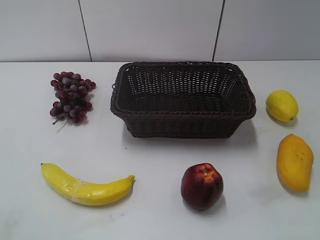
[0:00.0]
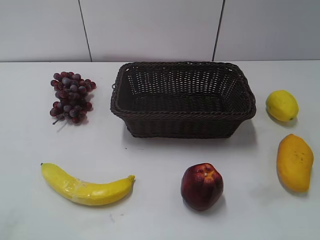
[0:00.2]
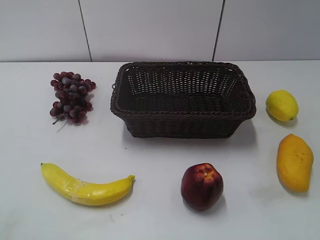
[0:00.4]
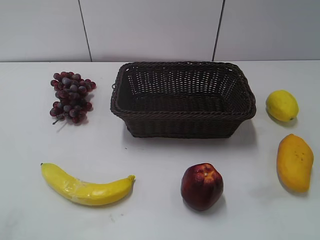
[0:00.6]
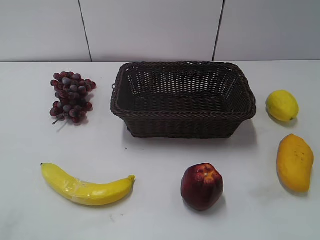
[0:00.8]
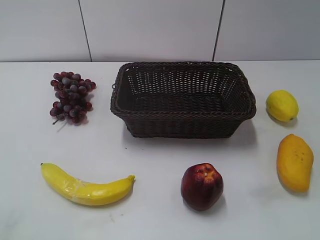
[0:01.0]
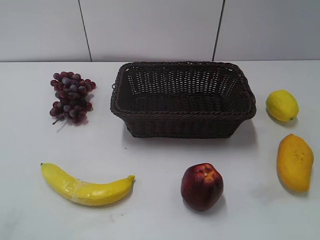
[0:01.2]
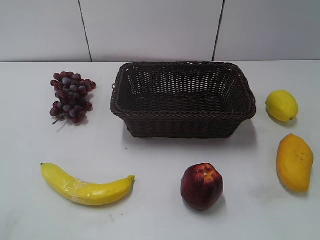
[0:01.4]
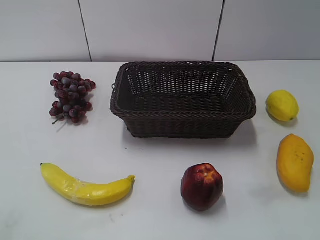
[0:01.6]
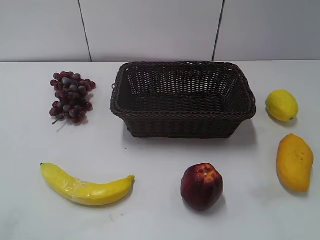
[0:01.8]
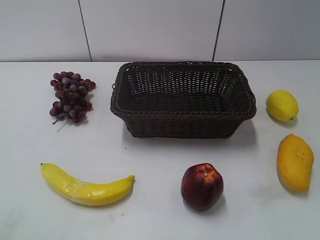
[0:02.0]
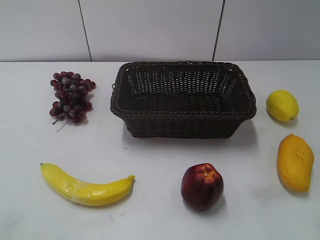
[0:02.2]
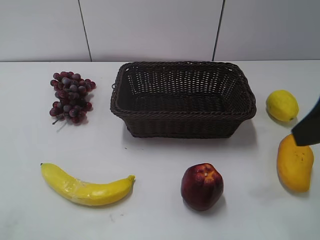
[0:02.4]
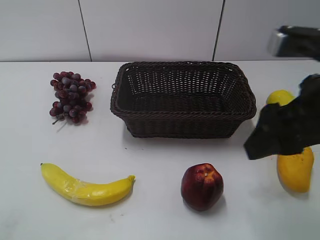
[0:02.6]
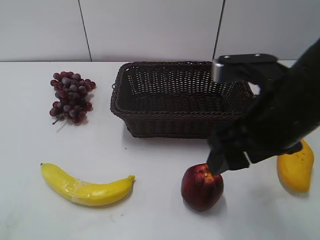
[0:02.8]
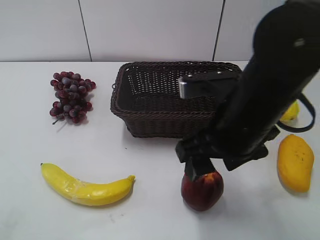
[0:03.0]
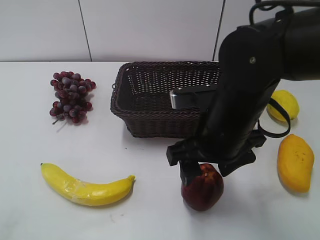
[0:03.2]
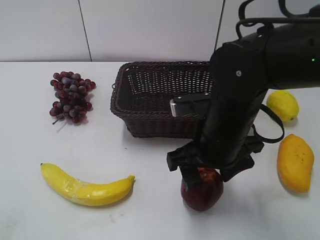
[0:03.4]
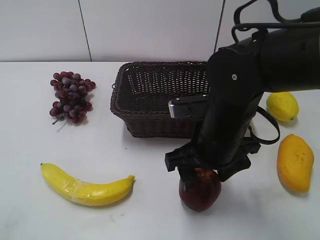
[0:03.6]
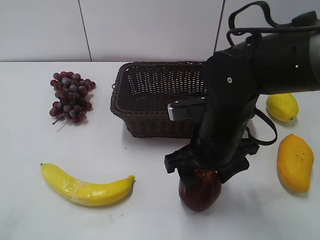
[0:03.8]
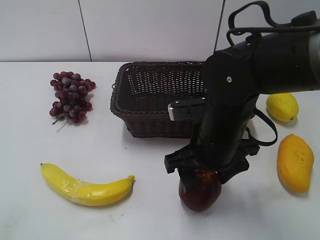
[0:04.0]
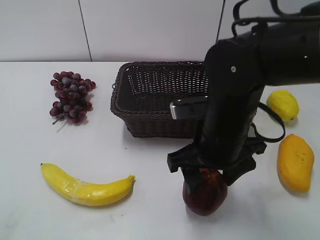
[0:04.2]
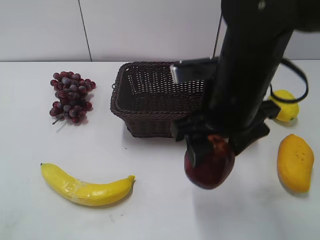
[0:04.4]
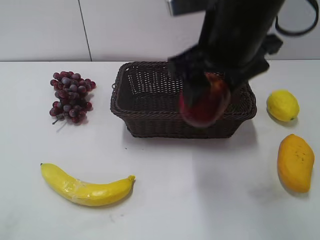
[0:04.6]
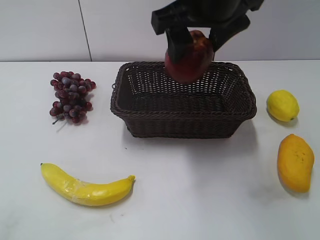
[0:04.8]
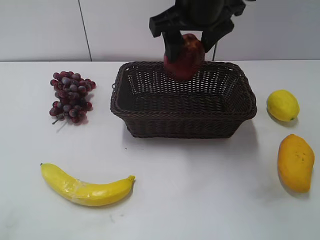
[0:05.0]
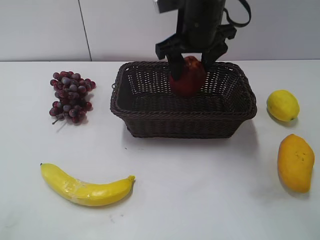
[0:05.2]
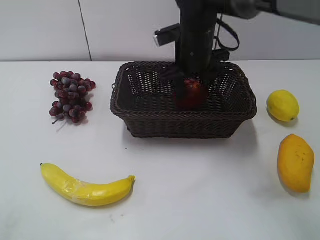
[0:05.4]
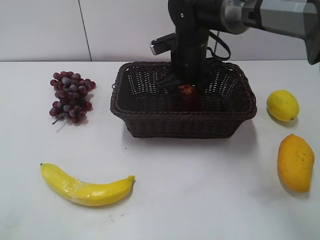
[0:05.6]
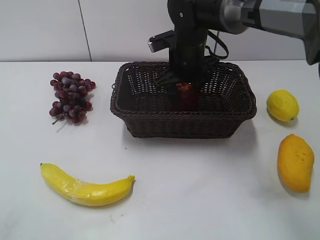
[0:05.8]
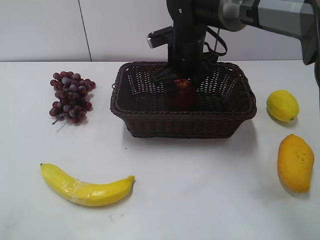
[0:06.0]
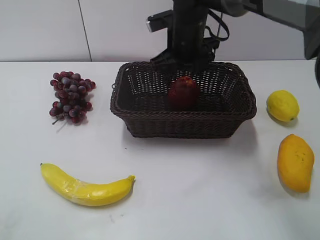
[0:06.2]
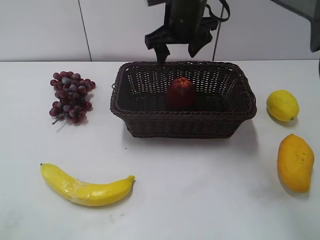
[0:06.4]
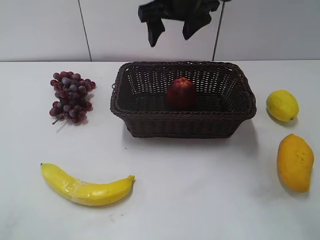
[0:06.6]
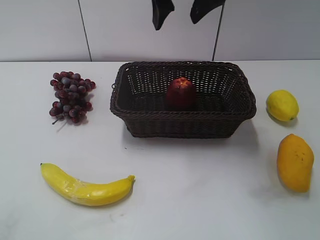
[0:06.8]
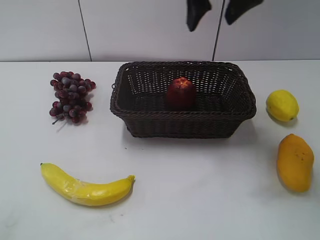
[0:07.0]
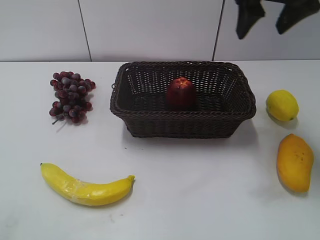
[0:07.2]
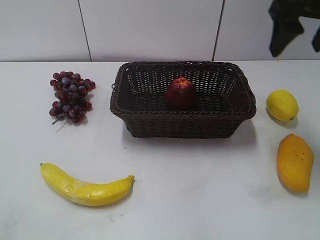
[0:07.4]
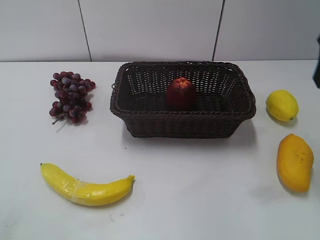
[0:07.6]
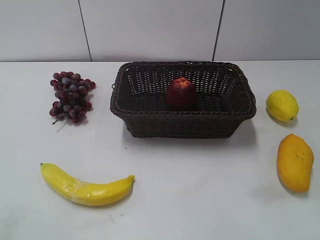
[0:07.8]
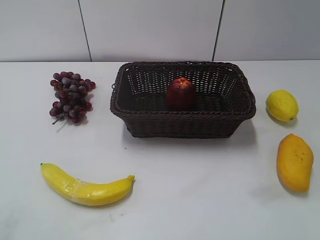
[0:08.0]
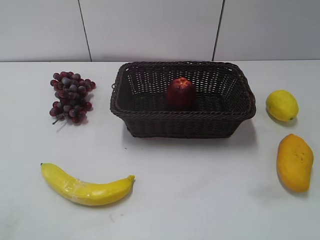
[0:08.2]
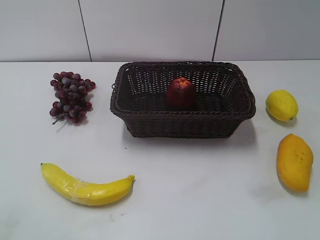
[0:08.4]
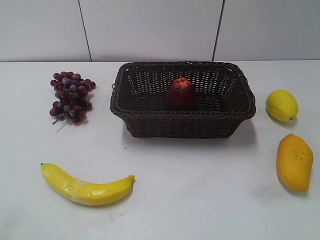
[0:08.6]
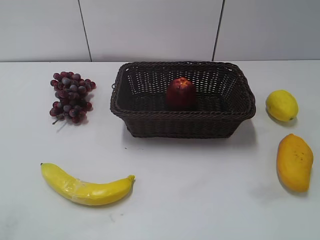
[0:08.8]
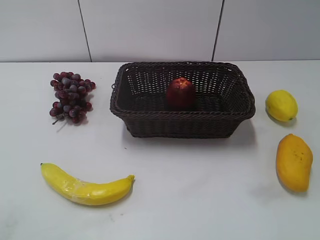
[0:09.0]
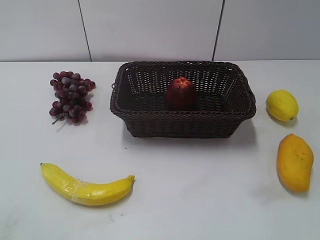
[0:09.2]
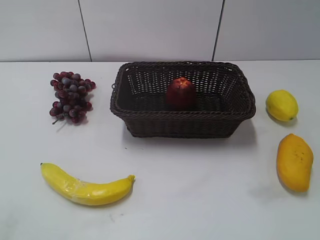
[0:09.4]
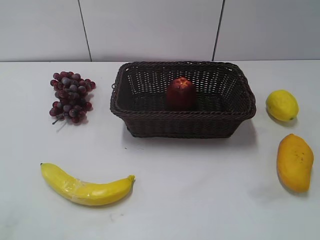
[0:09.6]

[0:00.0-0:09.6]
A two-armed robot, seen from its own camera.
Step, 0:02.4 to 0:03.6: Grasp the apple with right gripper.
Step, 0:04.0 to 0:05.8: Place the apple in the basket with right gripper.
0:01.6 to 0:03.2: The left gripper opens. Meanwhile the right gripper travels to the left, forward and downward by roughly 30 cm.
0:03.2 to 0:04.8: The right gripper travels upward and forward by some 15 cm.
0:04.8 to 0:06.4: The right gripper moves forward and downward, about 15 cm, and opens.
0:06.4 to 0:08.0: The right gripper heads backward and to the right, covering roughly 40 cm, and closes its fingers.

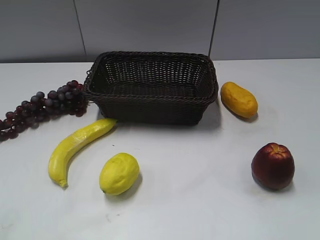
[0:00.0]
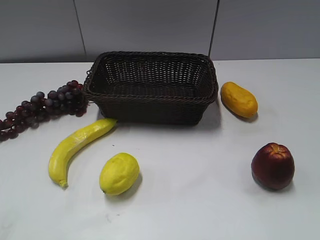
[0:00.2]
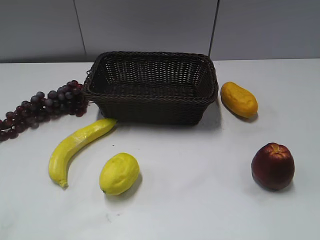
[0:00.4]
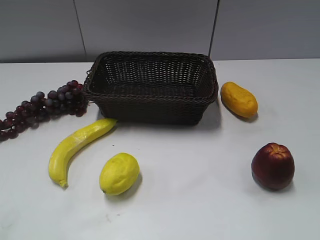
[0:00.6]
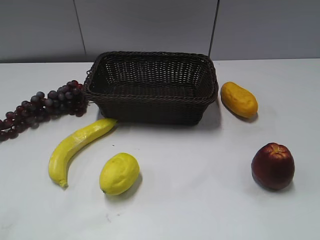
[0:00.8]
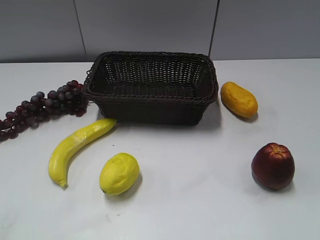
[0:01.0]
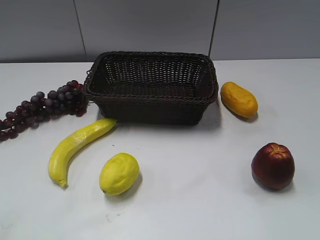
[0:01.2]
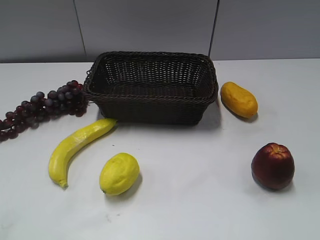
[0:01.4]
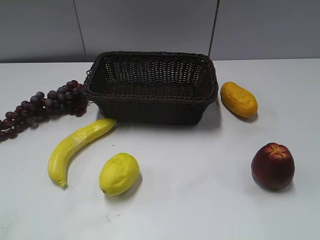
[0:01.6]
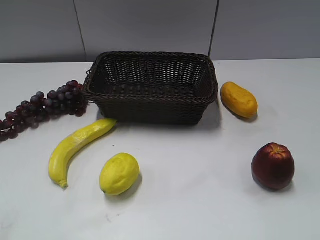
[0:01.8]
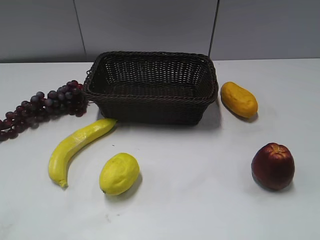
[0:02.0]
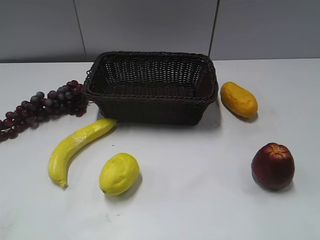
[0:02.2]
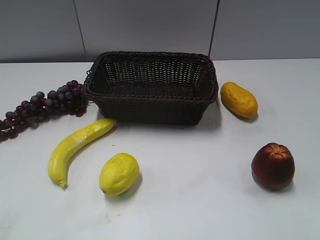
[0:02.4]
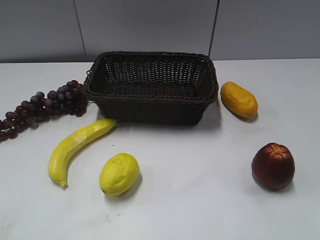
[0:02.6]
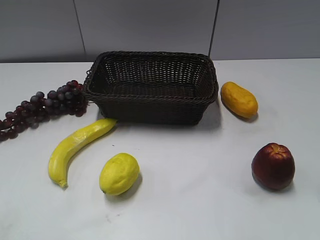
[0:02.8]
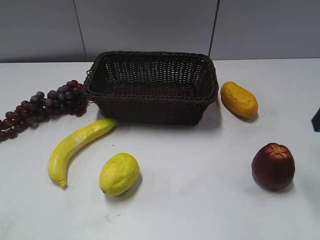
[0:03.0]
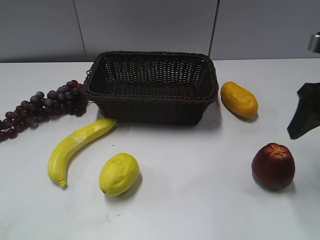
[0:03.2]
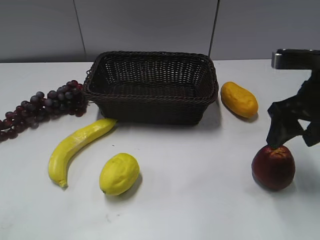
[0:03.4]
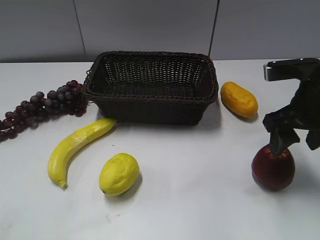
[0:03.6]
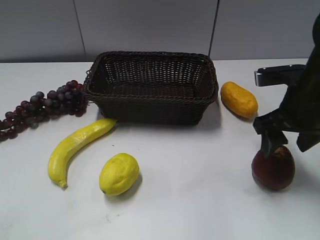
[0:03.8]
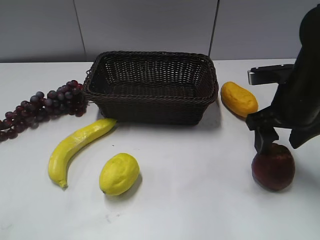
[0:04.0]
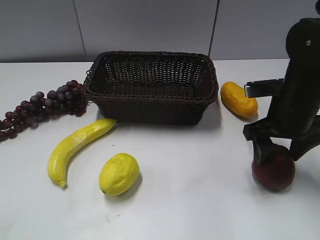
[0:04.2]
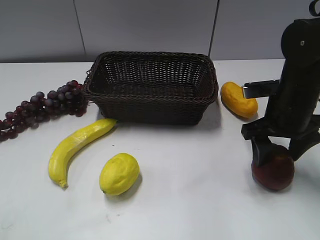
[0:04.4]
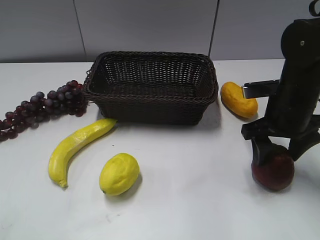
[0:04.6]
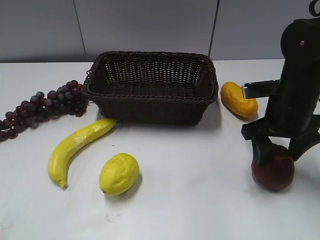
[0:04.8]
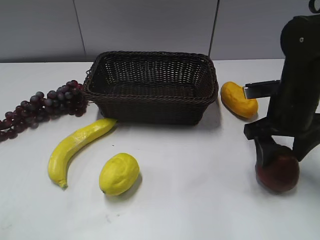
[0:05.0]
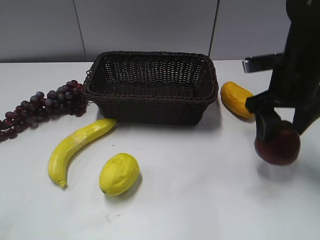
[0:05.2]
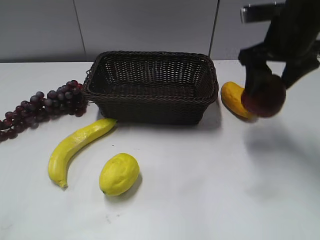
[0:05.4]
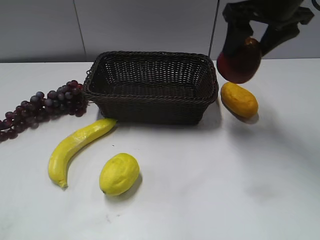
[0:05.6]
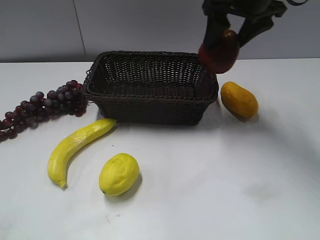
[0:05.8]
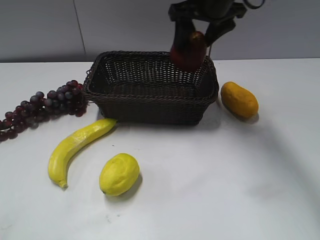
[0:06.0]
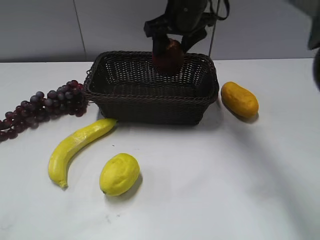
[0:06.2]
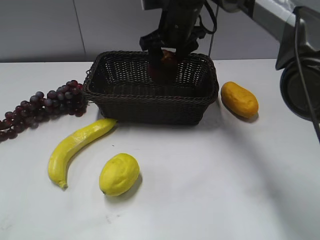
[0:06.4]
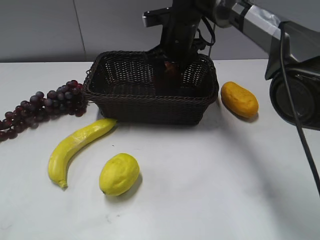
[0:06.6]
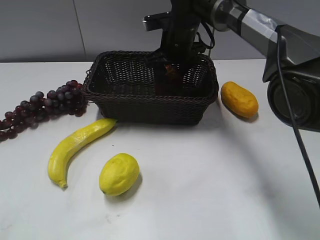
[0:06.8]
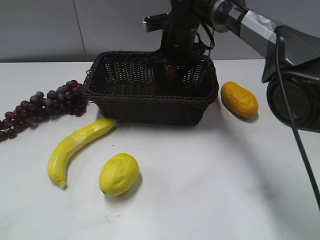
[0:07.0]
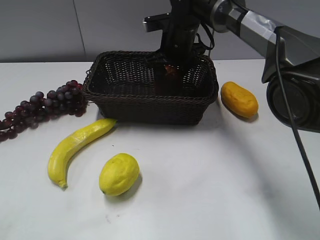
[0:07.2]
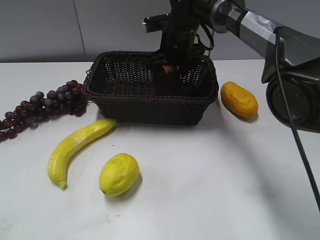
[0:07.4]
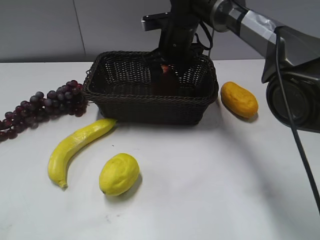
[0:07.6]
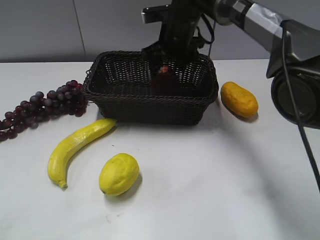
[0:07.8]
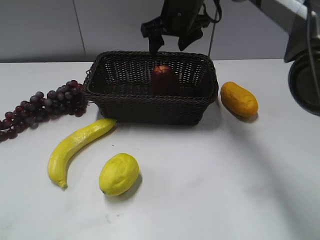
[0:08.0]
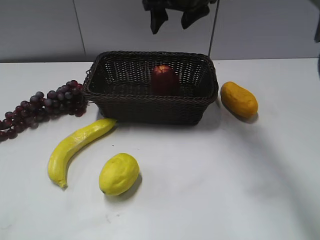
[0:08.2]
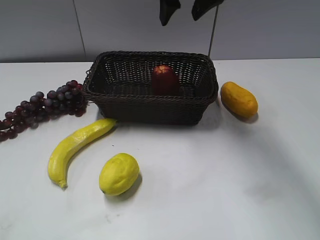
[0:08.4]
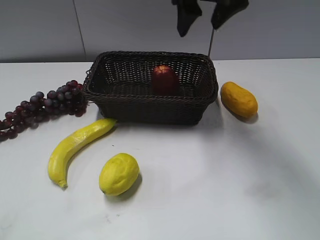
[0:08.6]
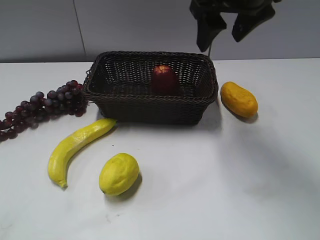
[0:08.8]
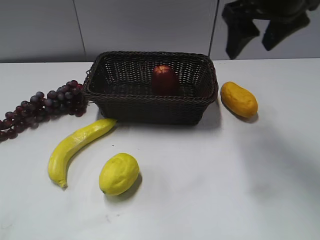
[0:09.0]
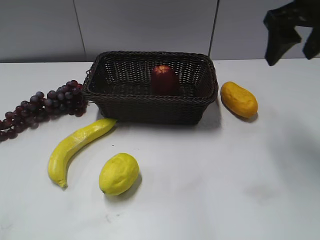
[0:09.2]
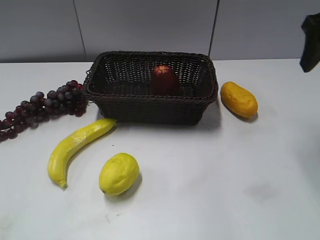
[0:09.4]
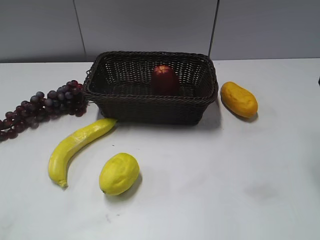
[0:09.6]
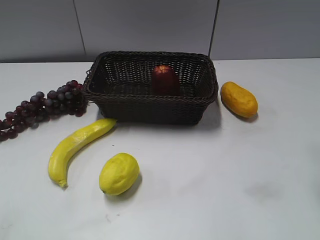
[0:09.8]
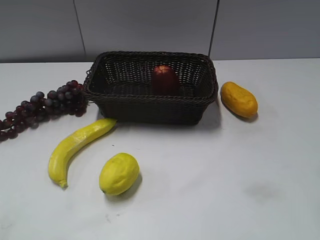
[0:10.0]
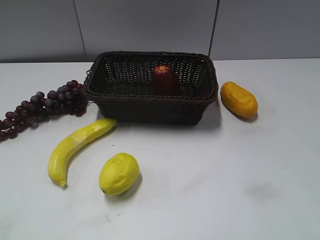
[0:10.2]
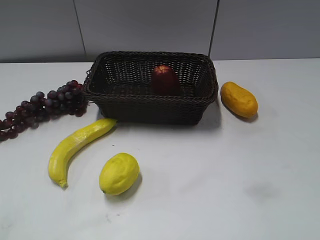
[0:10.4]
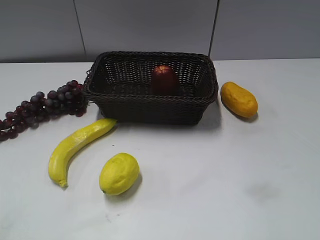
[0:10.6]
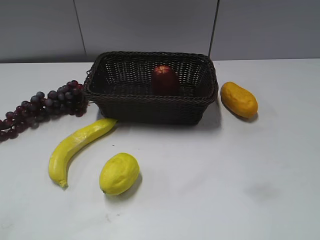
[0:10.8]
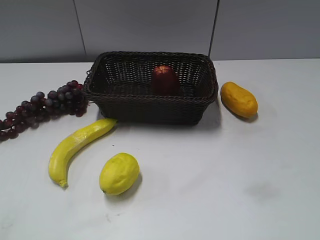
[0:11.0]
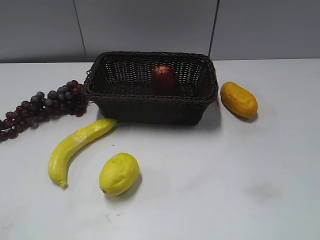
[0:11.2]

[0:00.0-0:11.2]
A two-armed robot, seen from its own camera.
Step, 0:03.0 to 0:04.2: Grasp the apple with right gripper.
Step, 0:04.4 to 0:07.0: Place the apple in the basket with right gripper.
0:01.6 to 0:03.2: The right gripper is displaced forward by approximately 25 cm.
0:03.2 to 0:04.8: The right gripper is displaced downward and to the left by roughly 10 cm.
0:04.8 to 0:06.4: The right gripper is displaced to the left and forward by roughly 25 cm.
0:06.4 to 0:08.0: The right gripper opens its fingers.
0:08.0 to 0:09.6: The right gripper is displaced to the right and backward by some 30 cm, and closes its fingers.

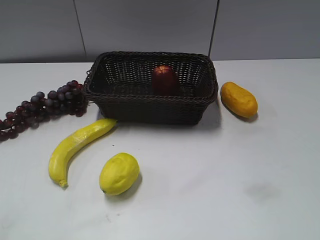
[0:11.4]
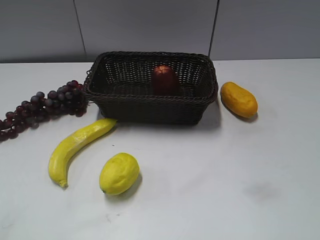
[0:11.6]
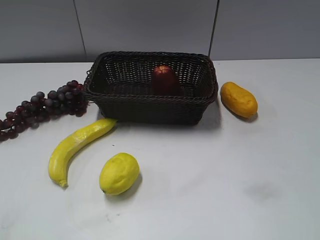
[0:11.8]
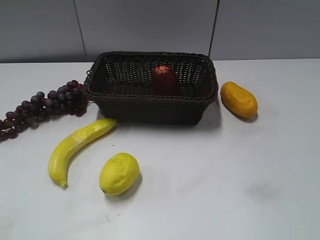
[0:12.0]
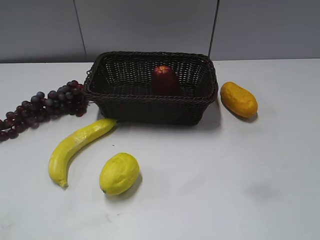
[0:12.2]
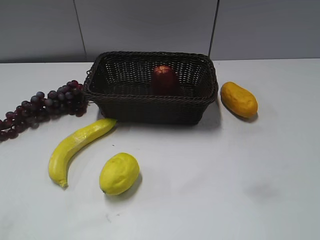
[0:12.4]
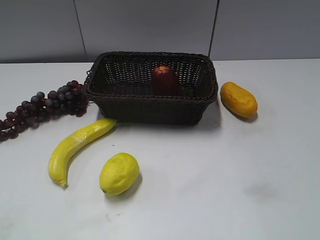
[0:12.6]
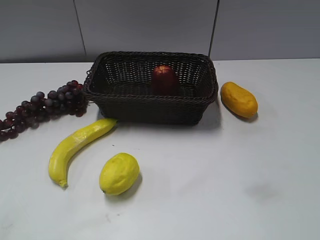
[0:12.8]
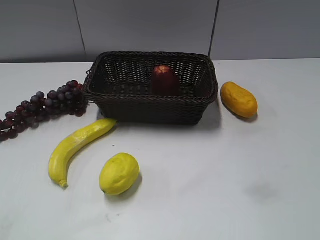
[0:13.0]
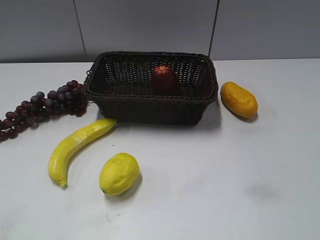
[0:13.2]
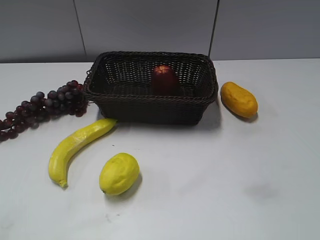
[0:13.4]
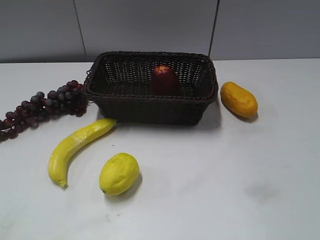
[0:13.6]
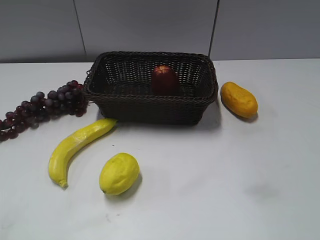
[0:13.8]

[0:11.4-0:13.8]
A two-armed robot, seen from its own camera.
0:12.6 to 0:13.8: The two grippers keep their place.
